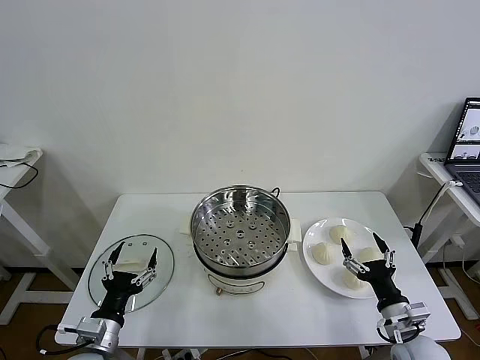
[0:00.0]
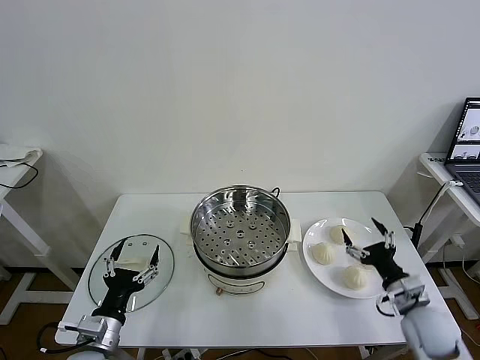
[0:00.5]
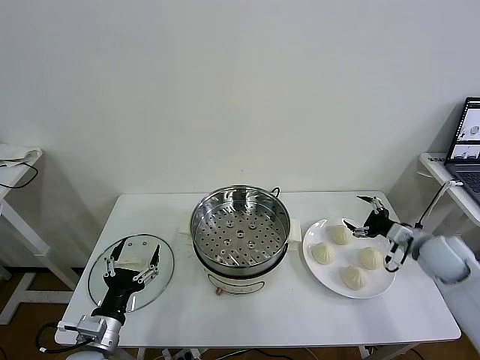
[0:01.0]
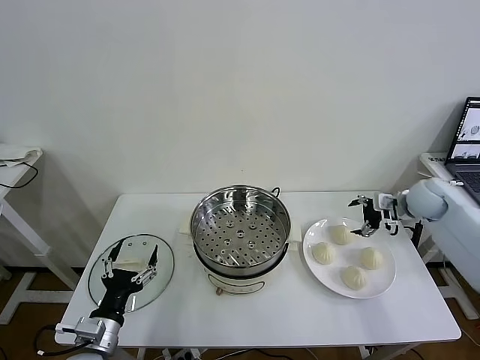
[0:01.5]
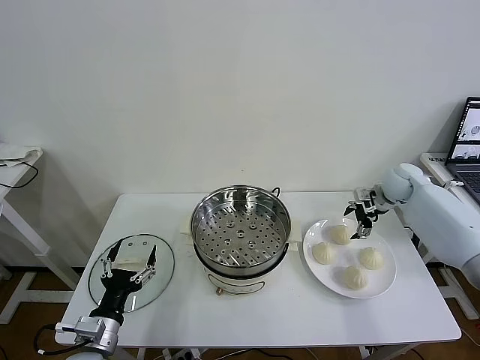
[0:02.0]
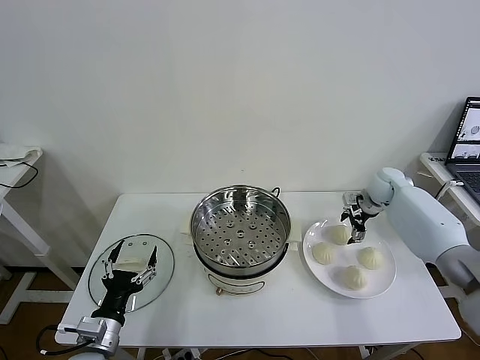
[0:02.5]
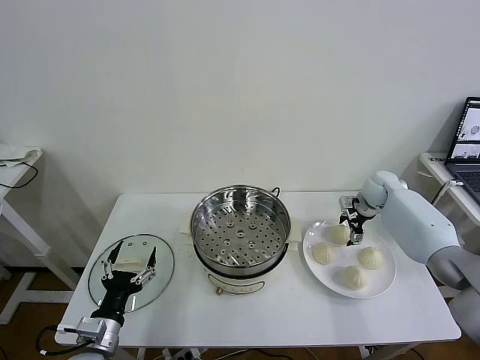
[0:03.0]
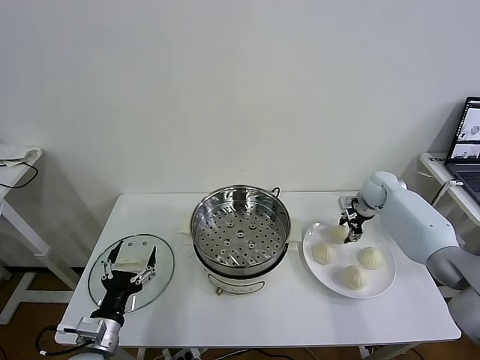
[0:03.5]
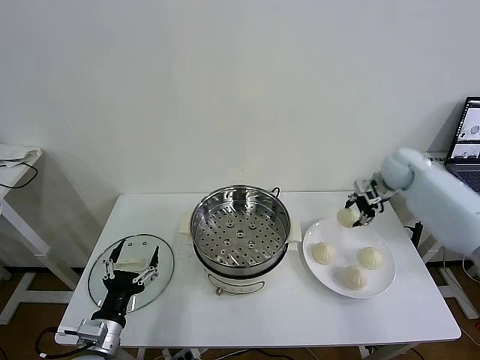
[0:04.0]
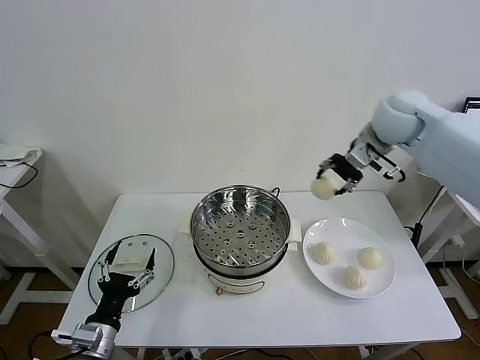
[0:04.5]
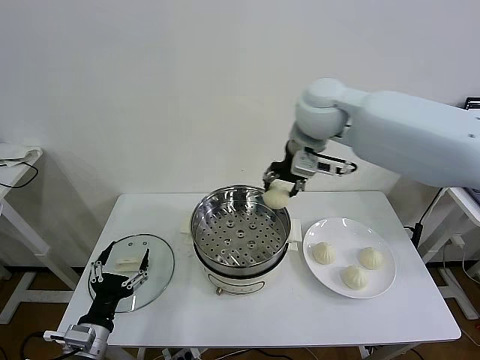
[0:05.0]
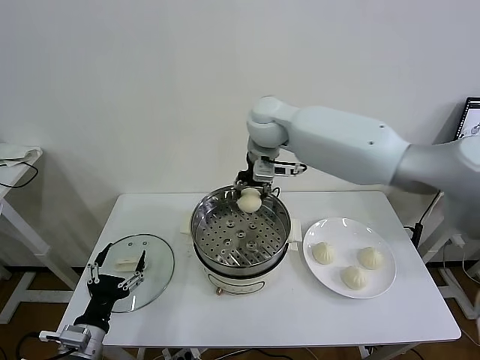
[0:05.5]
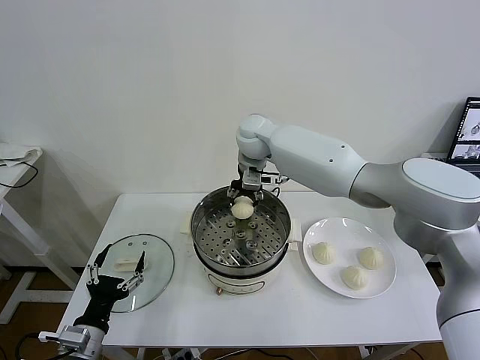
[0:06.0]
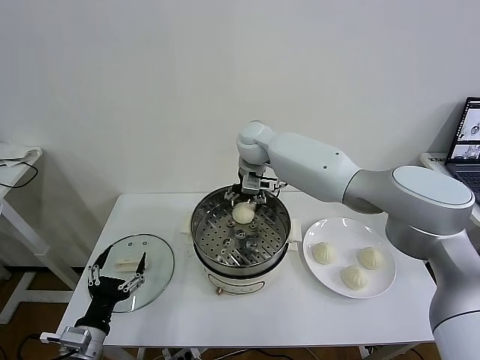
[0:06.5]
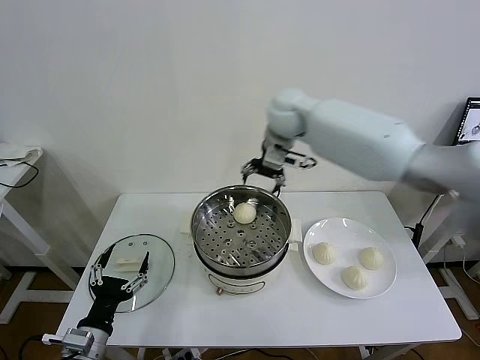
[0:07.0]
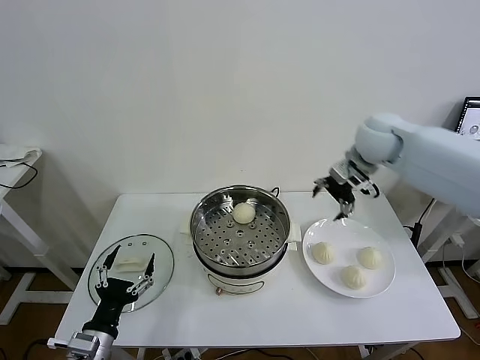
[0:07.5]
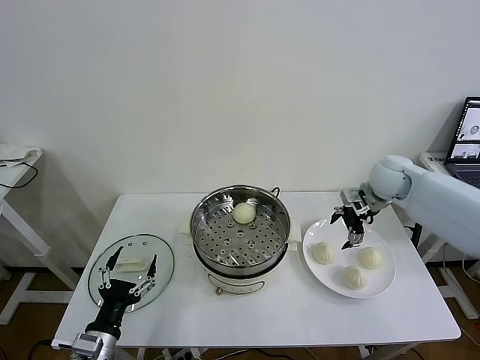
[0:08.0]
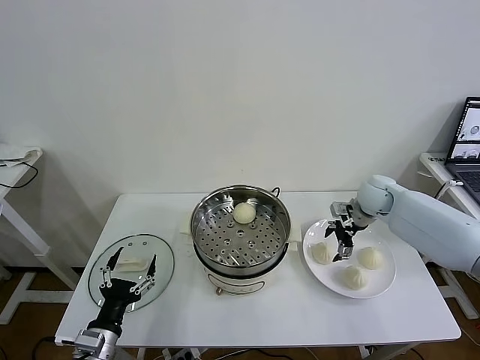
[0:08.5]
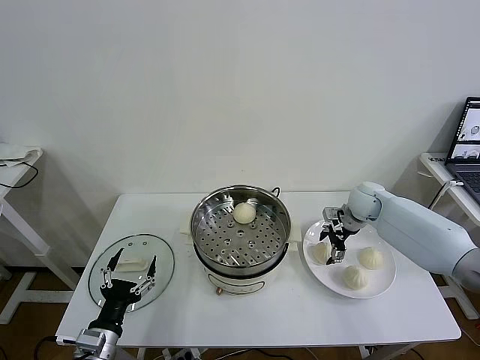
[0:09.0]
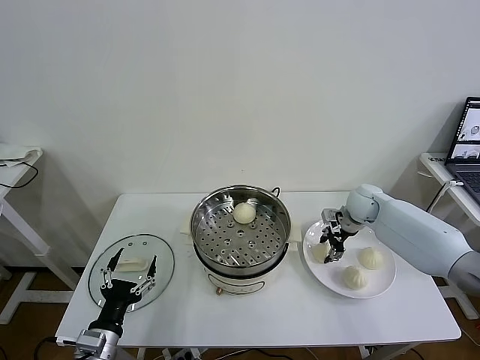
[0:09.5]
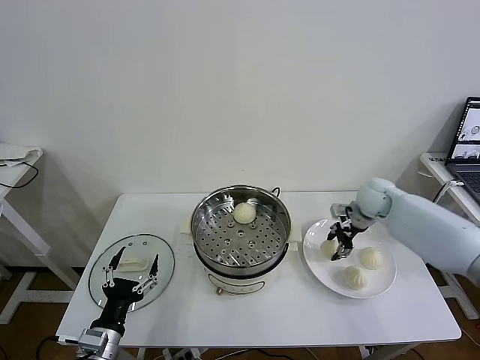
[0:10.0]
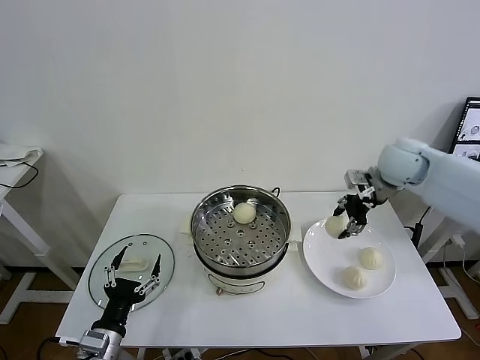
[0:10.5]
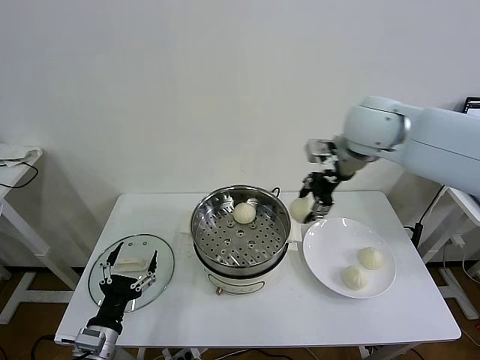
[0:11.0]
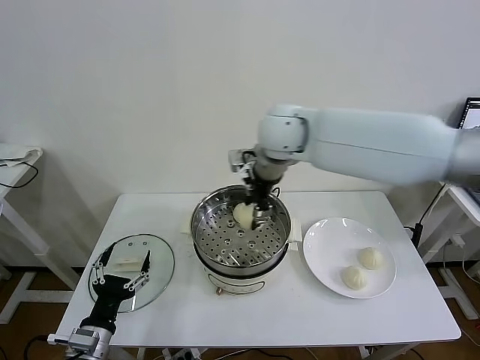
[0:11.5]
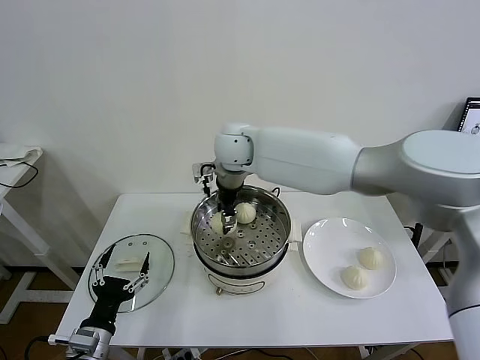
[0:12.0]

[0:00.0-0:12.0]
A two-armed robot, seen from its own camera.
Task of the whole recording: take steamed baozi put them in steamer then cover it.
Step, 0:00.0 to 0:03.0: Grasp the baozi in the plate with right gripper.
Step, 0:03.5 to 0:06.5: Place the baozi on the steamer with right gripper.
Step, 0:07.0 to 0:09.0: Grasp the baozi in the plate with right gripper.
0:02.0 to 0:04.0: The right gripper is displaced upward by approximately 10 cm, and closes up.
0:04.0 to 0:06.0: The right gripper travels to the left by approximately 35 cm.
0:06.0 to 0:08.0: The right gripper moves to the right, some 30 cm, and opens.
0:08.0 to 0:10.0: The right gripper closes up.
0:10.0 to 0:12.0: The right gripper shifts some 40 cm to the left.

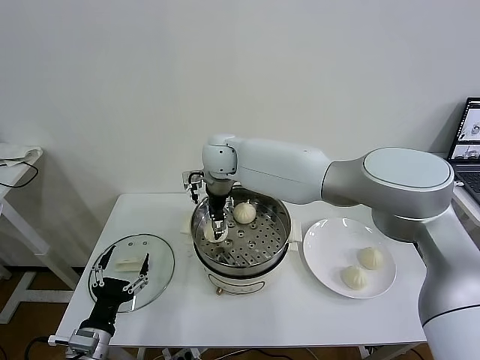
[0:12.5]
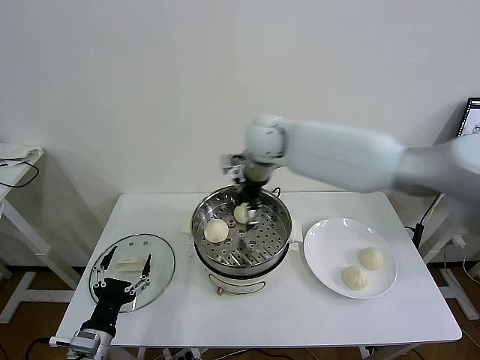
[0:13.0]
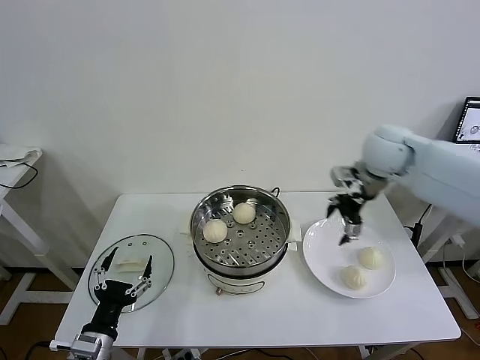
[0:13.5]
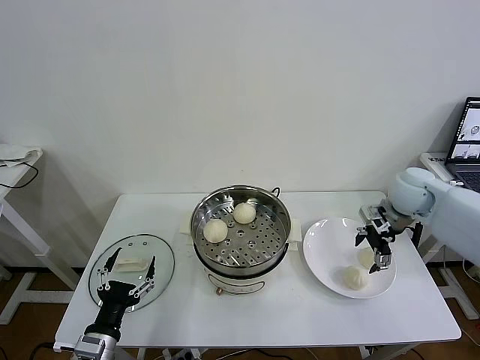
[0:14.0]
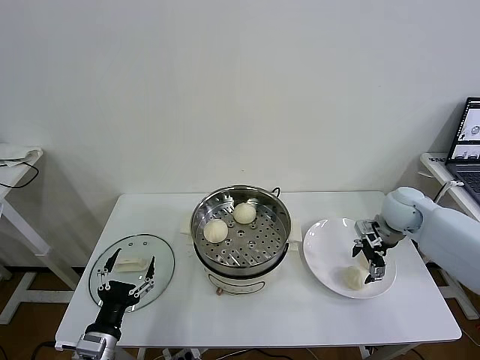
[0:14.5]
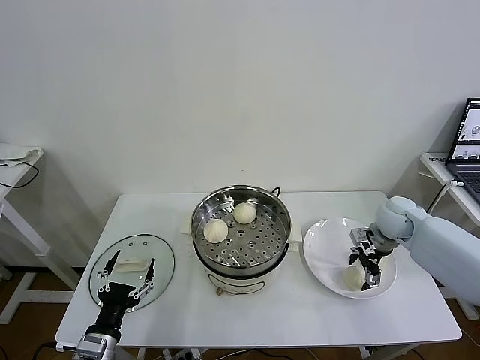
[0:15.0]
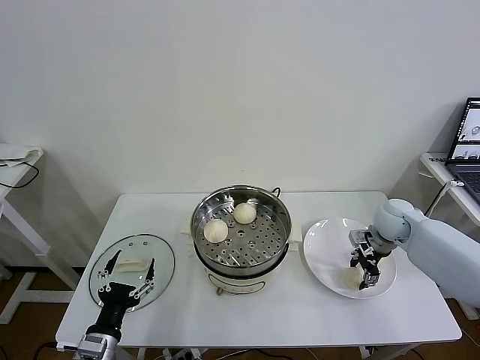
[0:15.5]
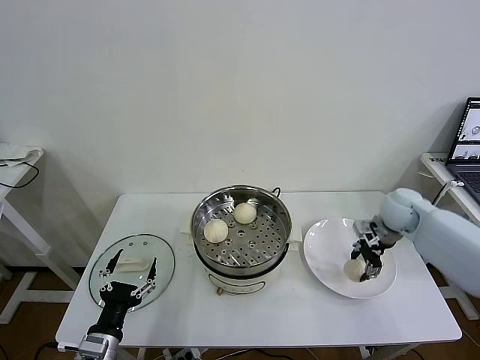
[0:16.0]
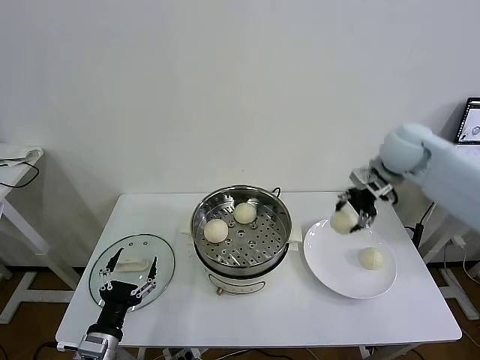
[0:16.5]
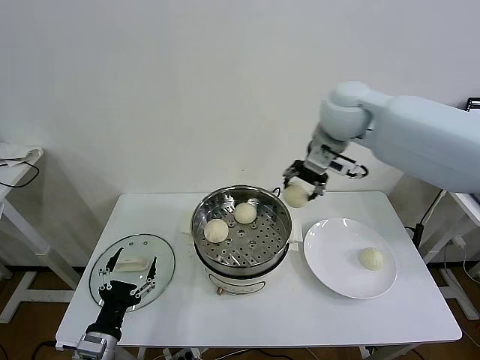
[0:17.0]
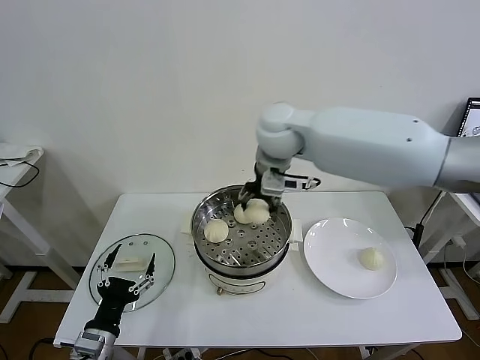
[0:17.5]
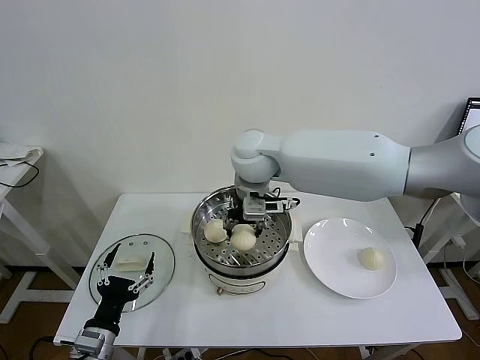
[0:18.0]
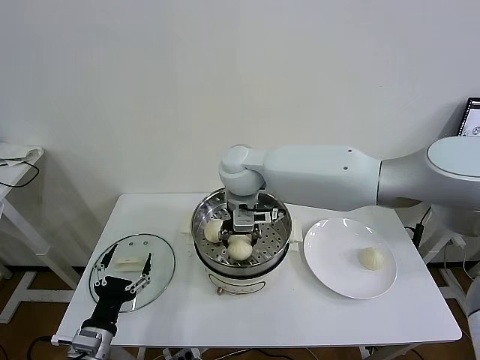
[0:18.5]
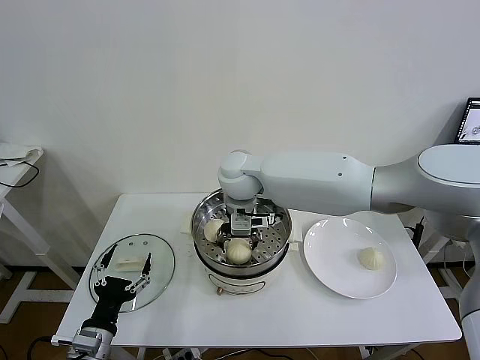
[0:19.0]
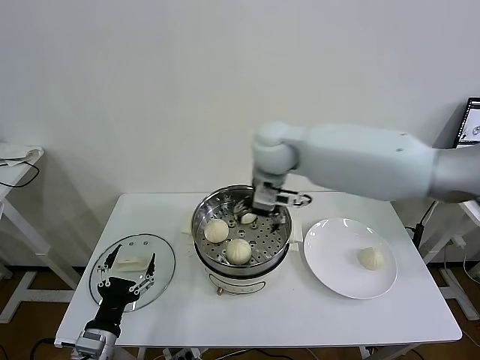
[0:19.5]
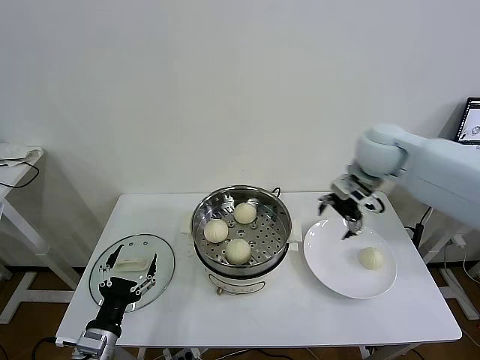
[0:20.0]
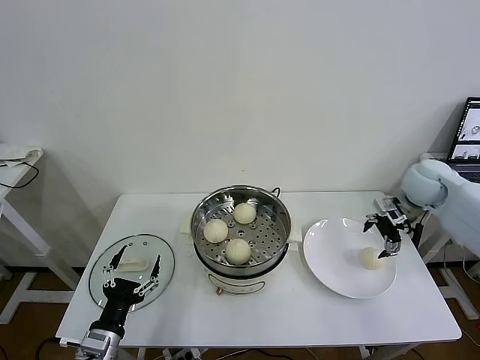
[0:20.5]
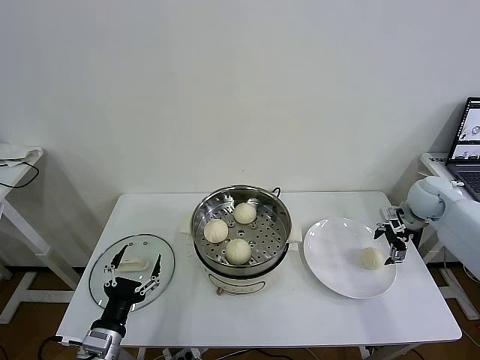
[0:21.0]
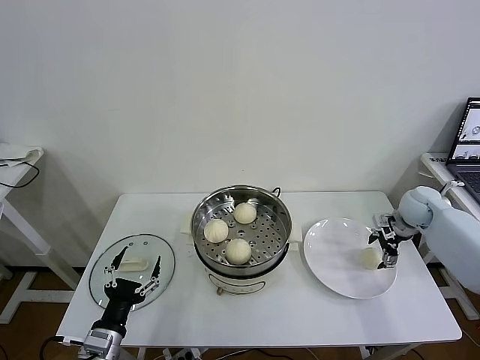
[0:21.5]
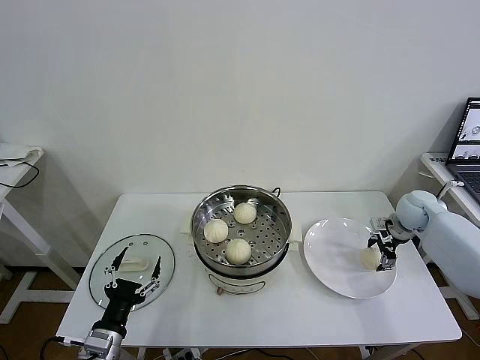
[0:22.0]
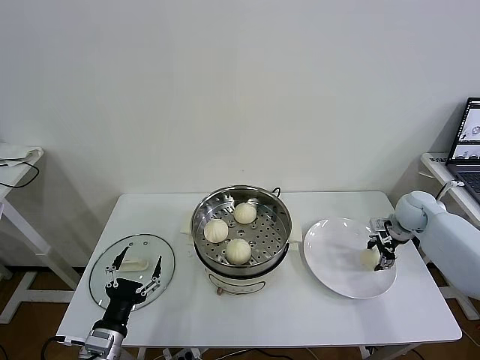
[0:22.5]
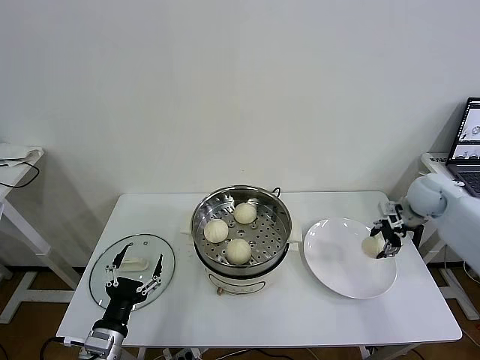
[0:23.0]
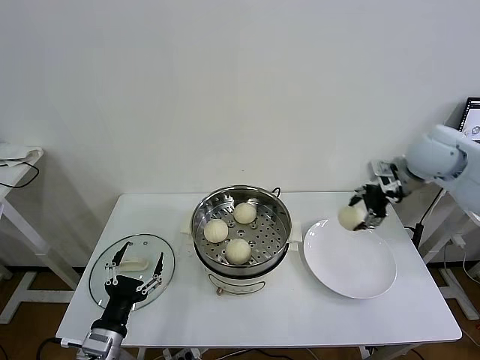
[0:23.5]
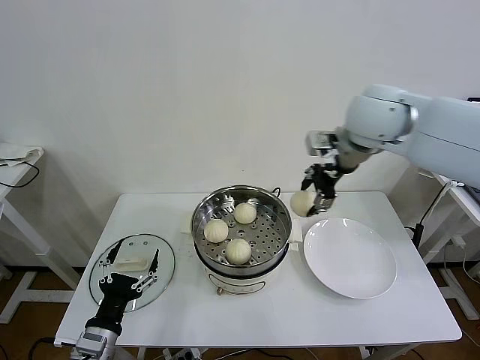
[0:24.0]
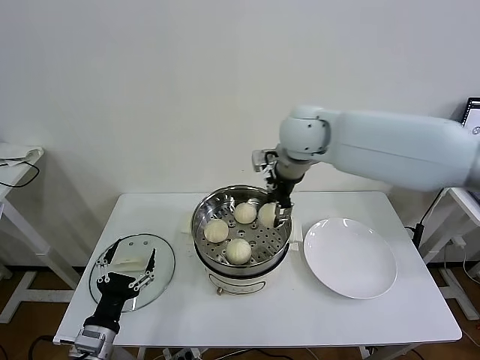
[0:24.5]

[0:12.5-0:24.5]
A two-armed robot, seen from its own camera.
Task of the whole recording: take steamed baozi put them in steamer then cover it.
Step, 0:13.0 to 0:15.5: Grasp the baozi in the plate with right gripper.
Step, 0:16.0 to 0:19.0: Place the baozi on the steamer with right gripper.
Step, 0:19.5 to 0:22.5: Grasp the baozi in the plate with right gripper.
0:12.5 to 0:14.5: The right gripper goes some 40 cm to the right.
0:14.5 to 0:16.5: The right gripper moves upward, about 20 cm, and closes up.
0:16.5 to 0:18.5: The right gripper moves to the left, approximately 30 cm.
0:18.5 to 0:20.5: The right gripper shifts roughly 40 cm to the right, and opens its fingers.
0:20.5 to 0:22.5: The right gripper moves downward, roughly 10 cm, and closes up.
0:22.5 to 0:24.5: The right gripper moves to the left and upward, about 40 cm.

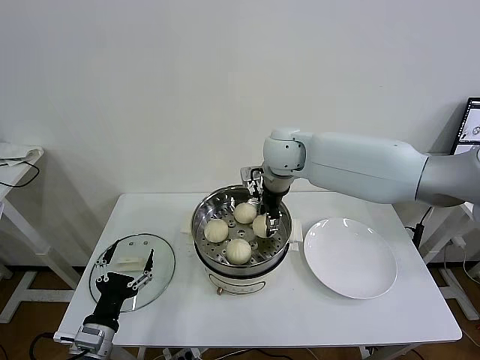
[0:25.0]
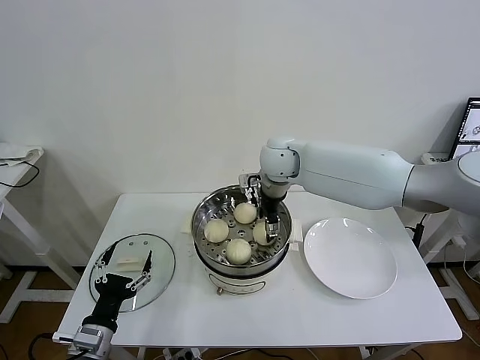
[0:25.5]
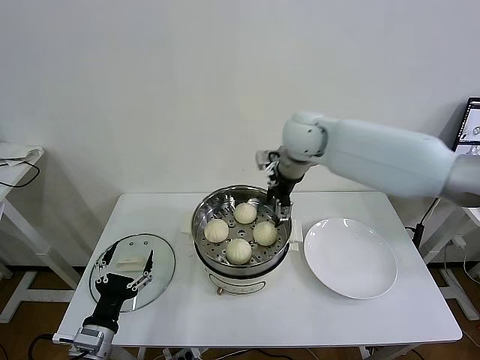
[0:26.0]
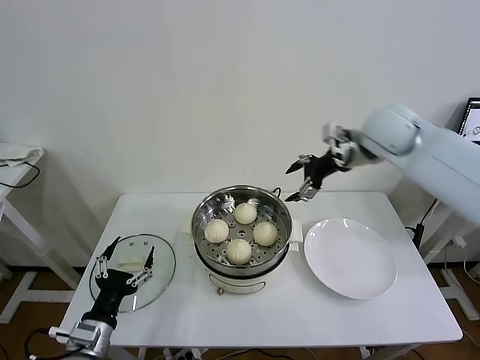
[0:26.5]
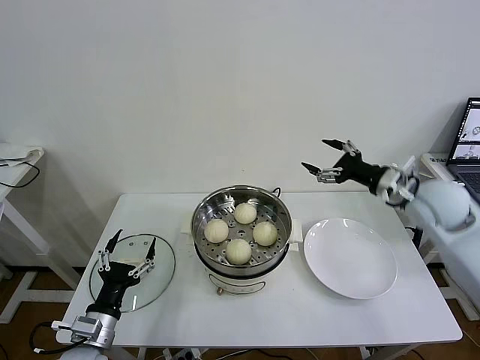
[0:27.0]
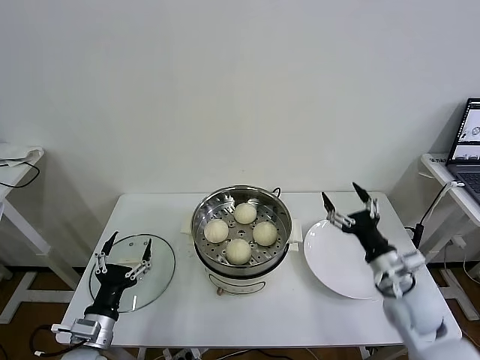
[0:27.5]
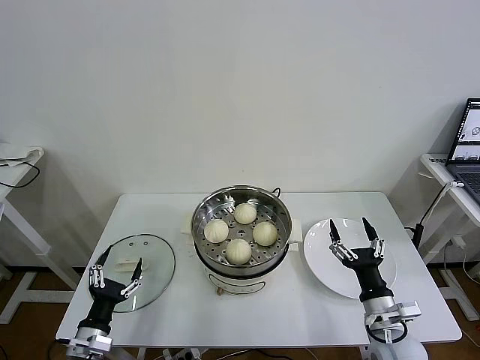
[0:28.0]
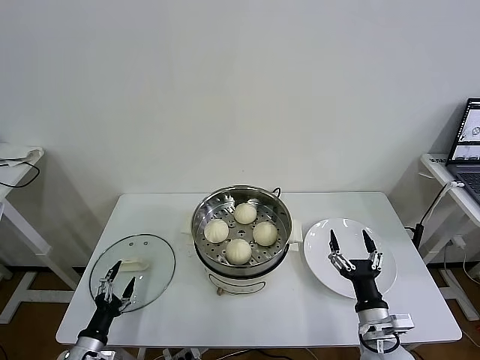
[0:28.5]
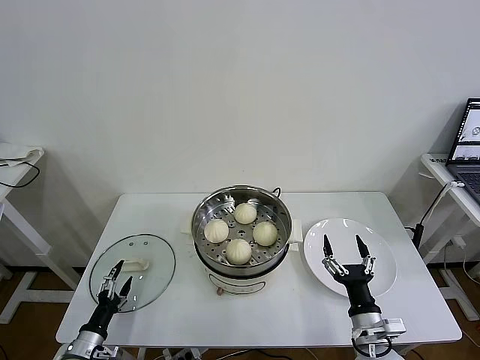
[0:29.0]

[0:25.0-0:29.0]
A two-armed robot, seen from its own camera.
Task of the whole recording: take steamed baozi put them in steamer then cover it.
0:25.0 to 0:27.0: The right gripper goes approximately 30 cm to the right and backward, and opens its fingers.
0:27.0 to 0:29.0: The left gripper heads downward and to the left, covering about 15 cm. Meanwhile the right gripper moves downward and backward, about 35 cm.
